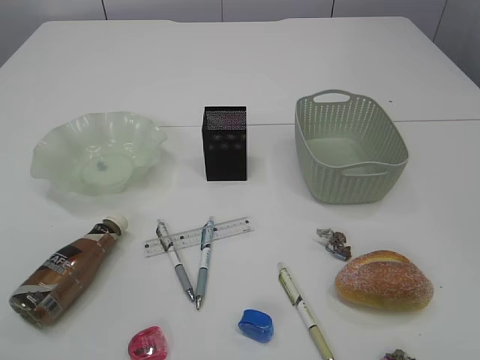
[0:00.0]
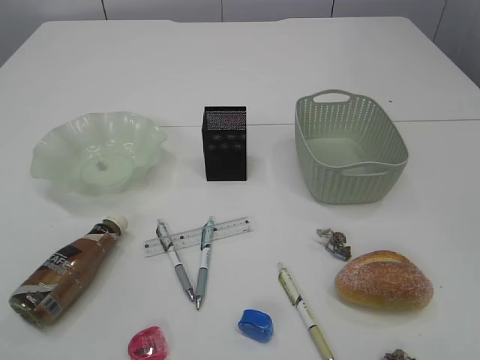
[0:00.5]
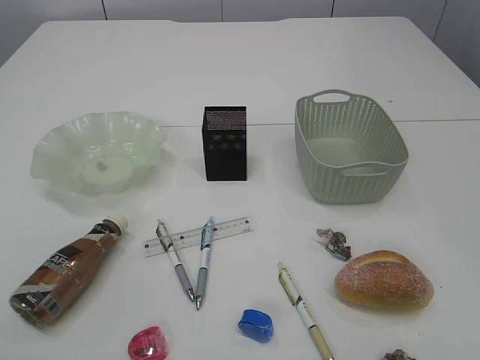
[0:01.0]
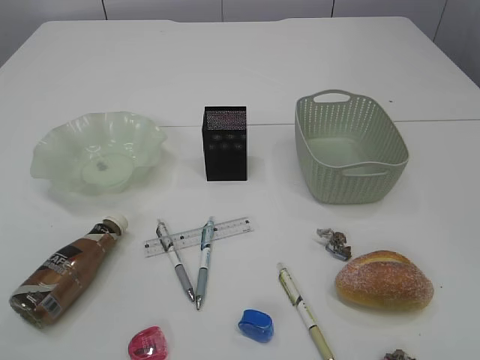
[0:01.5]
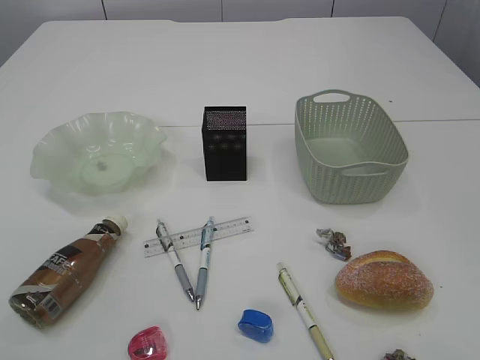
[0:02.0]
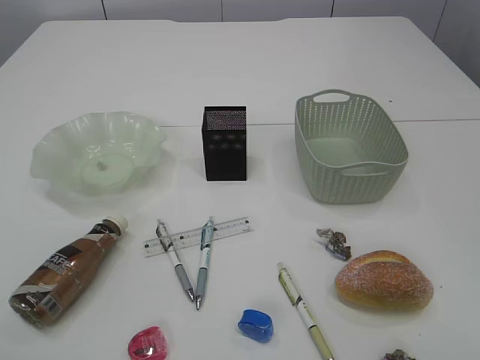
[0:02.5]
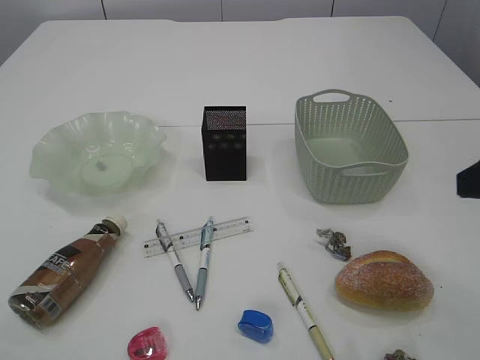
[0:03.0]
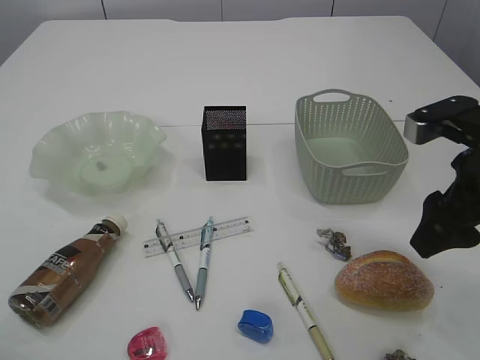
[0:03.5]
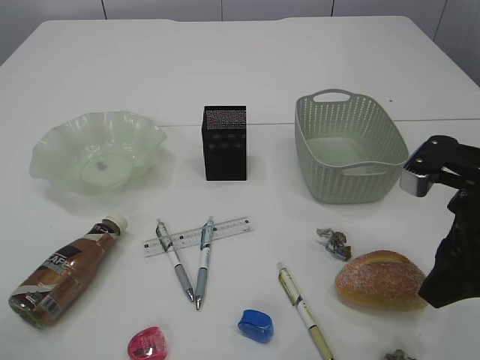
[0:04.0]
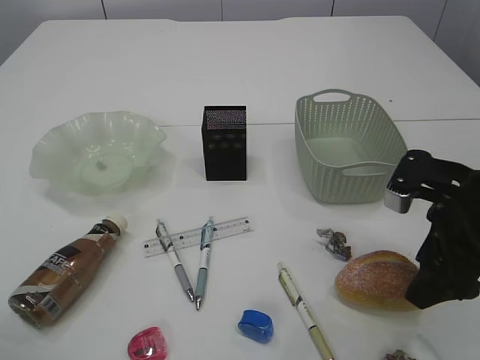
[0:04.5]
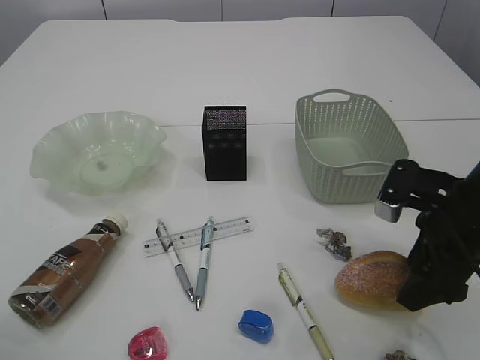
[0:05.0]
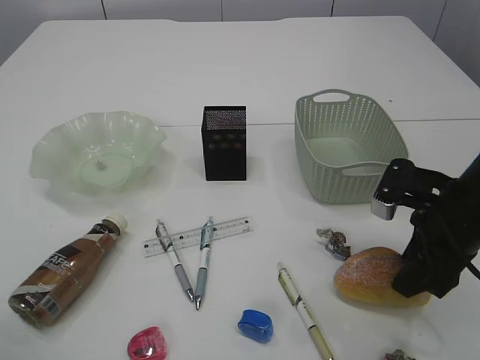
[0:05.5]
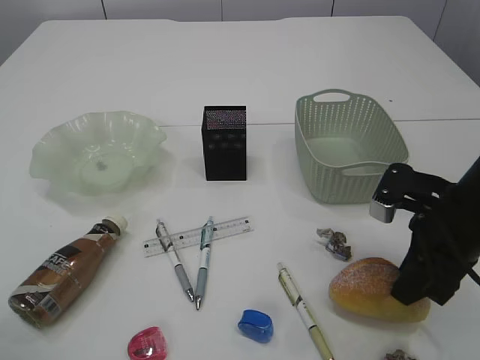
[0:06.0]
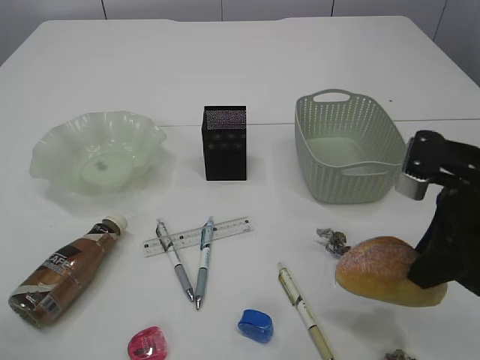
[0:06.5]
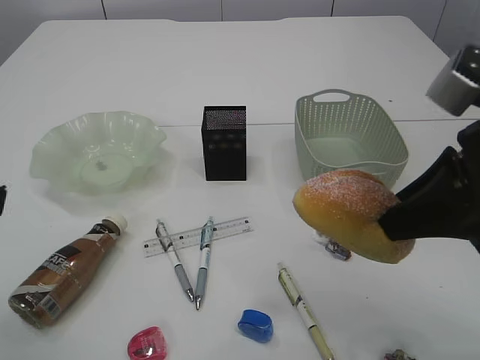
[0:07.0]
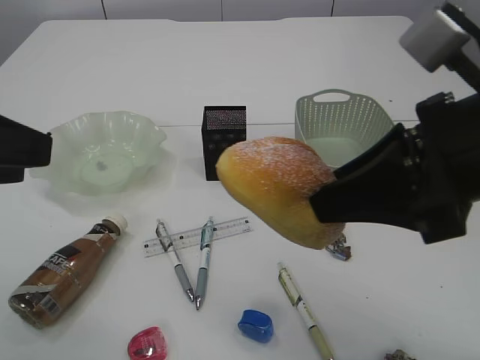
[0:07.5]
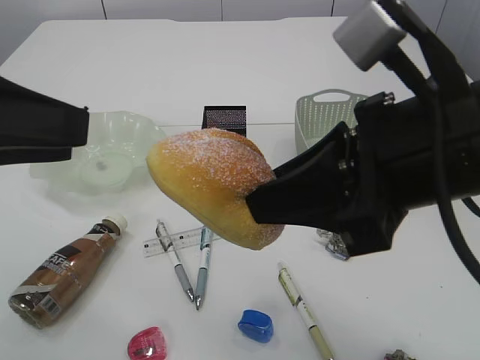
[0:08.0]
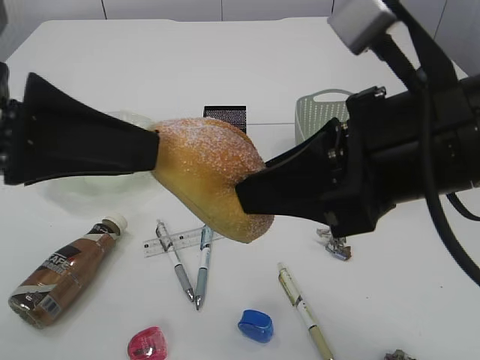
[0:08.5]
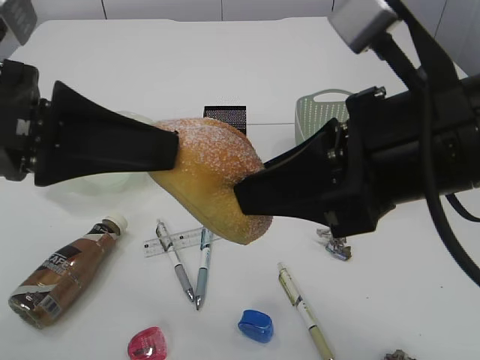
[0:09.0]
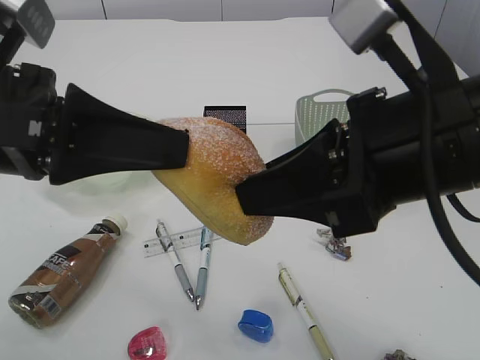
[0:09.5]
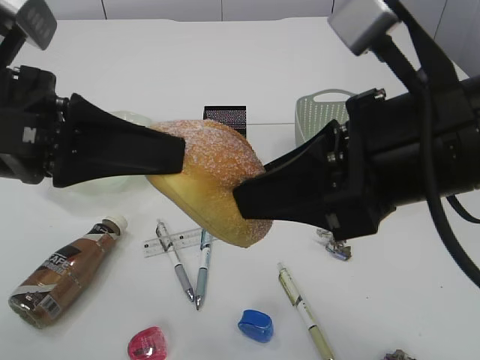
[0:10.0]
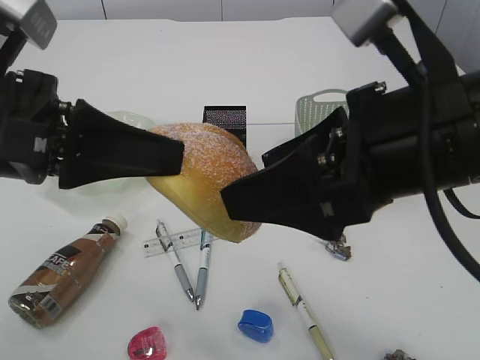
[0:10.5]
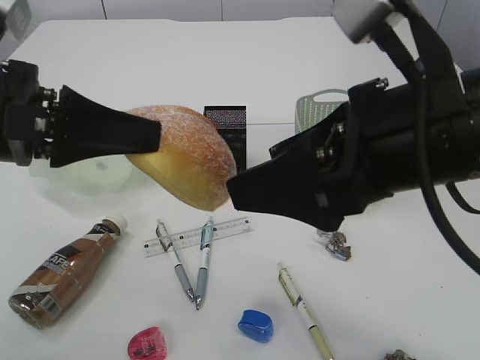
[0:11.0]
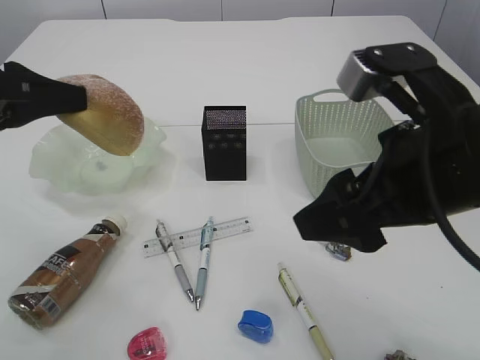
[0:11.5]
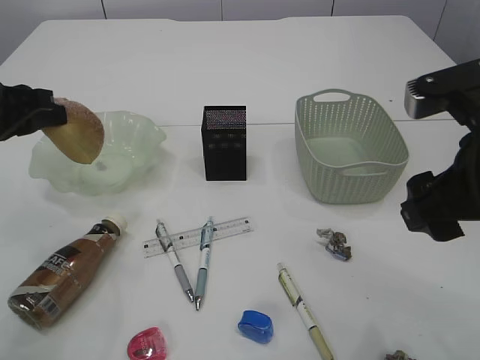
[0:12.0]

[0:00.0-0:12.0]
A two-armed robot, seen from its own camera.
Step, 0:07.5 to 0:11.0: Hand over the bread.
0:02.0 to 0:04.0: The right gripper goes approximately 25 cm forward.
0:04.0 to 0:06.0: The right gripper heads downward, covering some 5 cm, and closes its fingers.
0:06.0 to 0:08.0: The right gripper travels upward, to the left and backward by approximately 20 cm. The left gripper moves to the right, approximately 5 cm.
0:08.0 to 0:10.0: The left gripper is displaced to the right by roughly 5 cm, and closes.
0:10.0 to 0:12.0: The left gripper goes about 15 cm forward, to the left and downward; the right gripper shifts some 10 cm to the right, and opens its fingers.

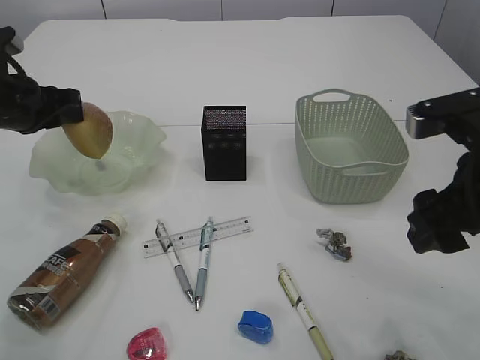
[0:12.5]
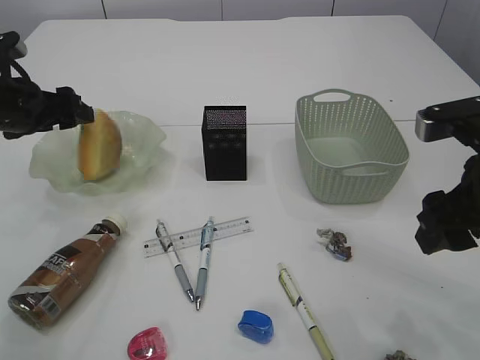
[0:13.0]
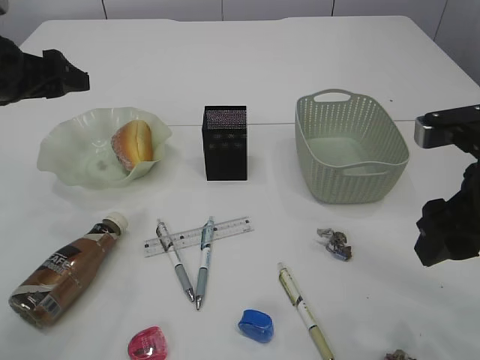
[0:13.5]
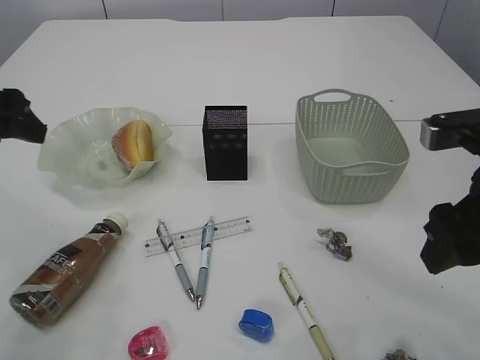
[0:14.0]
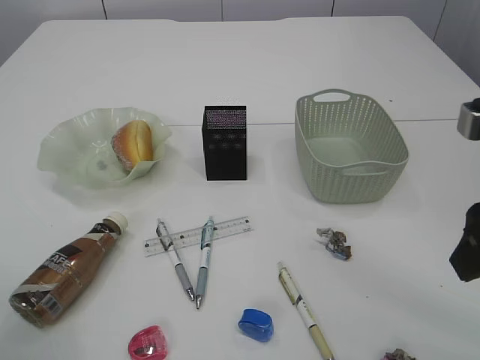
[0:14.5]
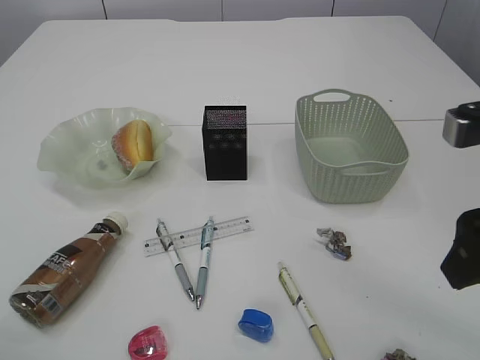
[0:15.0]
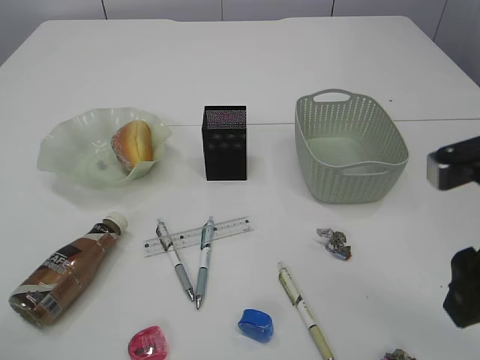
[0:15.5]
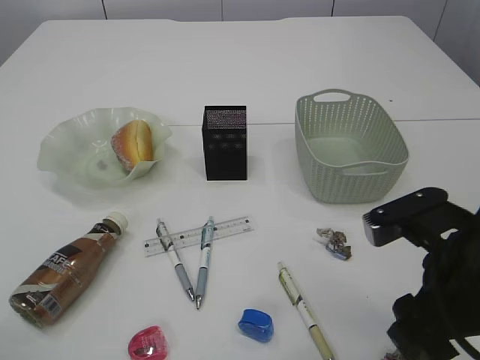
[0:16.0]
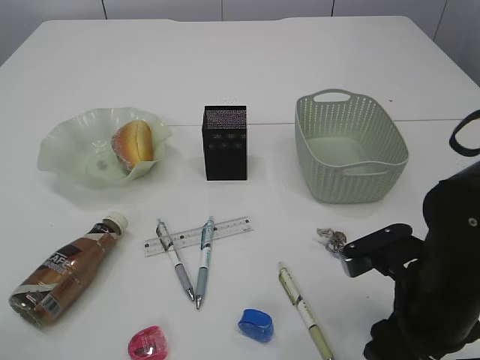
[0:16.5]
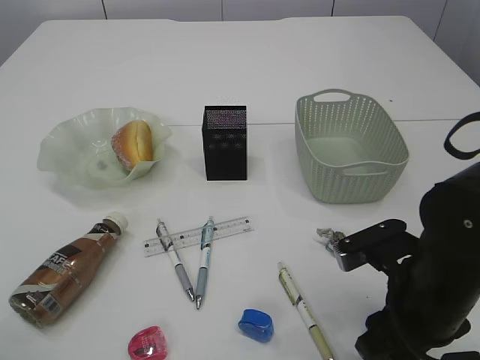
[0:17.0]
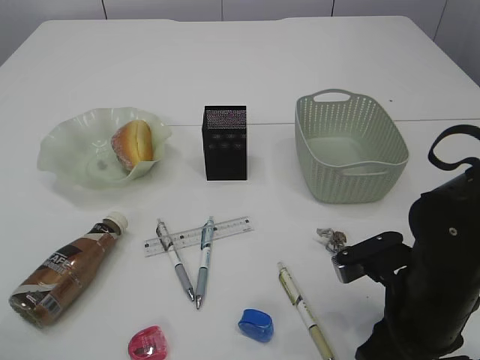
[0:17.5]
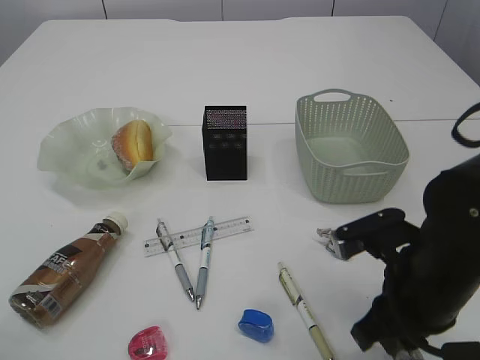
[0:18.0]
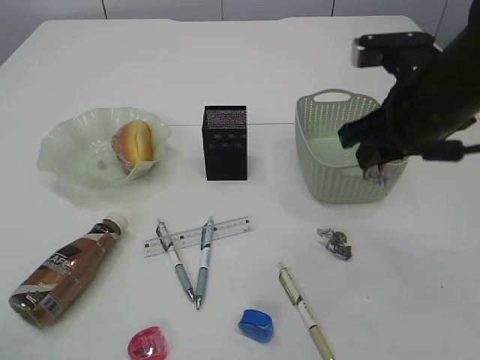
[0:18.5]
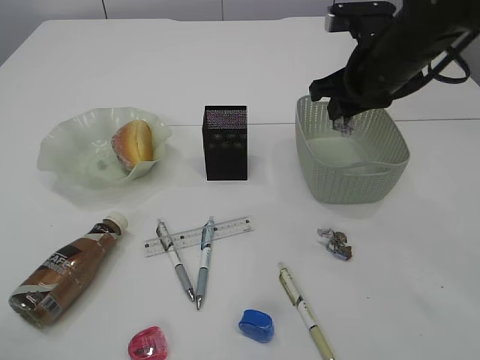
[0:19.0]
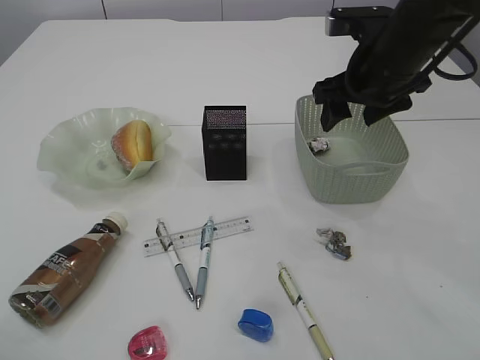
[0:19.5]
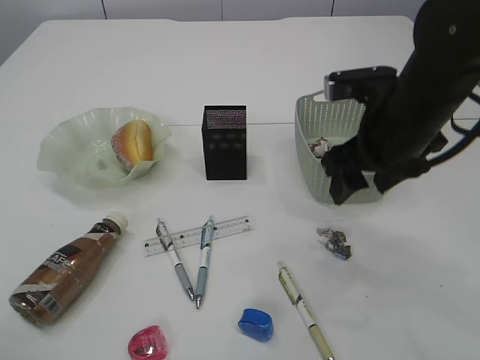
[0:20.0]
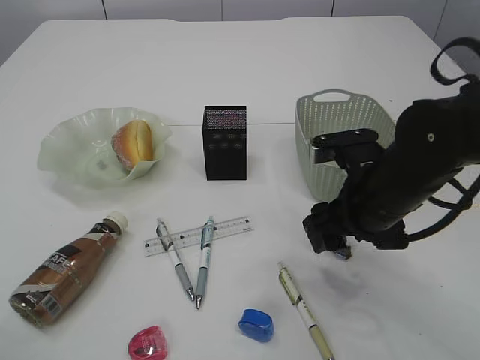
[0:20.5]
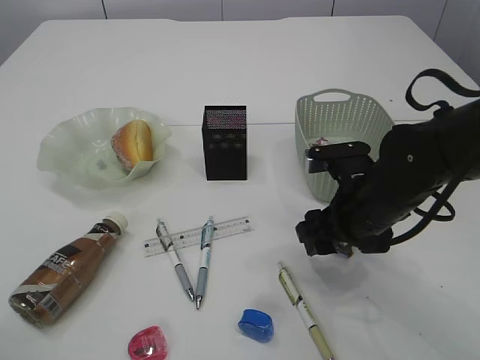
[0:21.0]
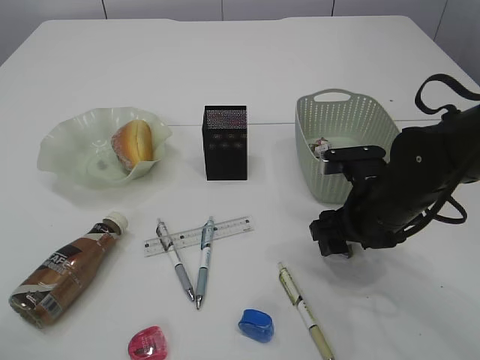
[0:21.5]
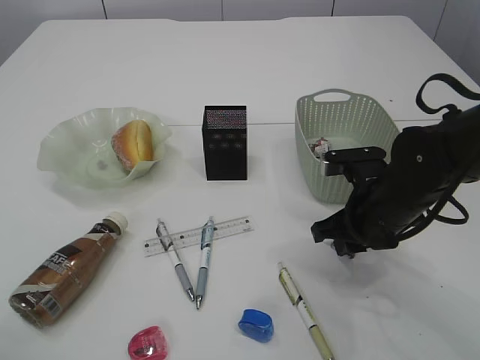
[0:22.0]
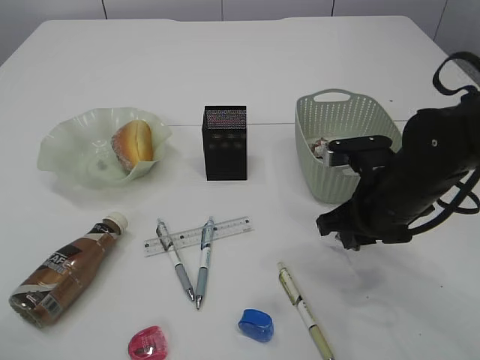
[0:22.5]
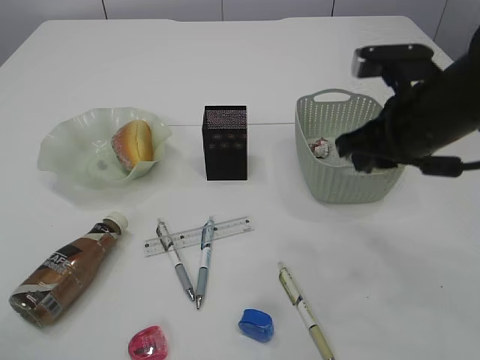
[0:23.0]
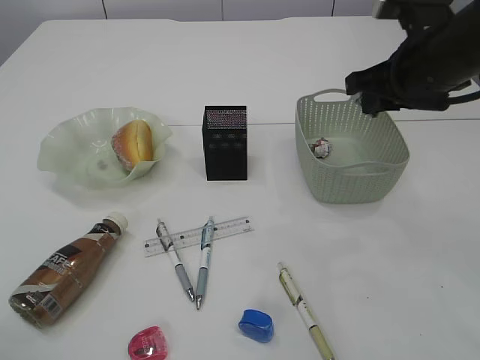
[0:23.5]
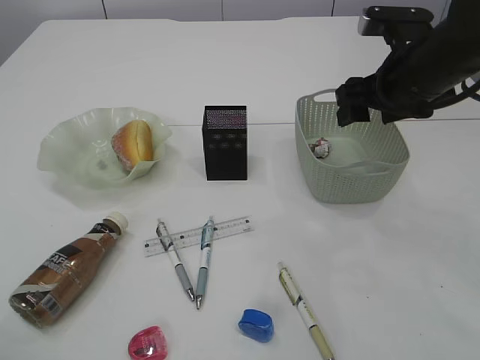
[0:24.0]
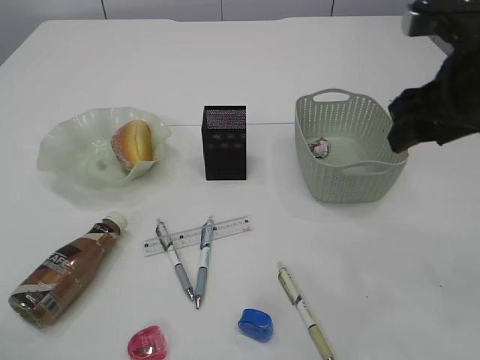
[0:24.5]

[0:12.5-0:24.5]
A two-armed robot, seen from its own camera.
Step, 0:12.5 to 0:14.0: place the bread in the plate.
Step, 0:14.5 to 0:18.0: Pick up the waste paper.
Step, 0:18.5 to 0:19.0: Place the waste paper in the basket.
Step, 0:19.5 to 0:22.5: Pick up the waste paper.
Step, 0:23.0 to 0:23.5: Place the waste paper in the basket.
0:12.5 to 0:14.5: The left gripper shifts some 20 cm backward and upward, and opens.
0:14.5 to 0:16.5: The right gripper goes about 15 cm downward and to the left.
0:16.5 to 0:18.5: The right gripper goes some 15 cm upward and forward, and closes up.
0:18.5 to 0:20.5: The right gripper travels downward by approximately 10 cm, travels forward and back again, about 10 cm each way, and opens its fingers.
0:20.5 to 0:22.5: The right gripper closes.
0:22.5 to 0:24.5: The right gripper goes approximately 15 cm upward, and opens up.

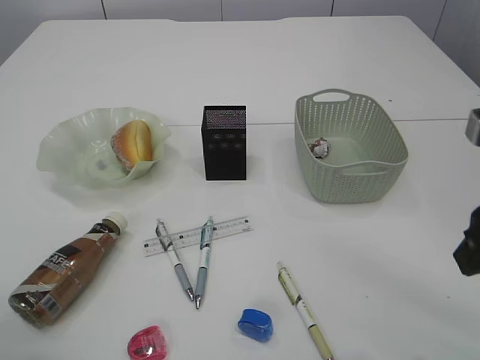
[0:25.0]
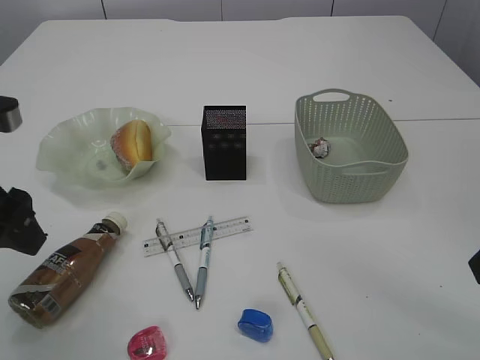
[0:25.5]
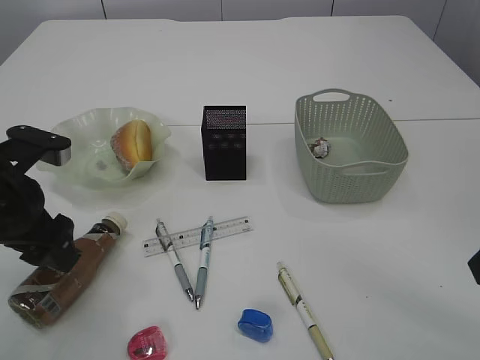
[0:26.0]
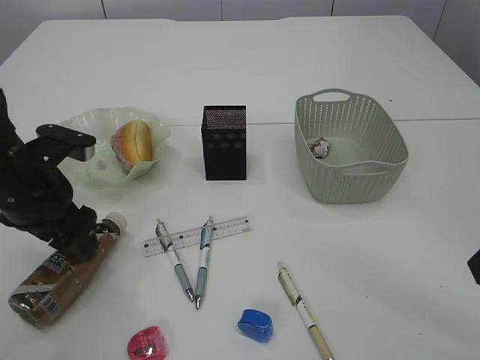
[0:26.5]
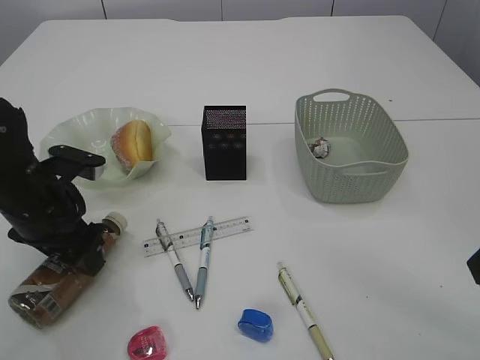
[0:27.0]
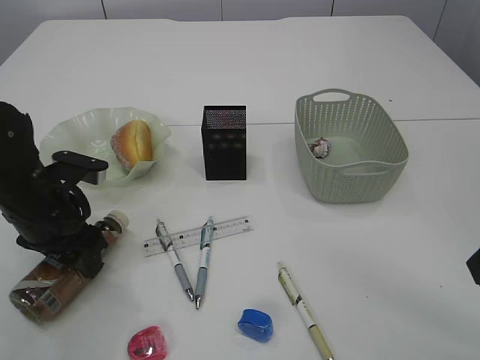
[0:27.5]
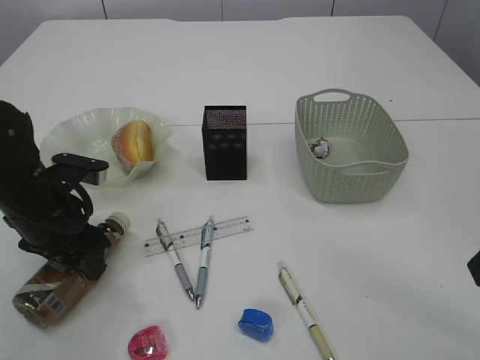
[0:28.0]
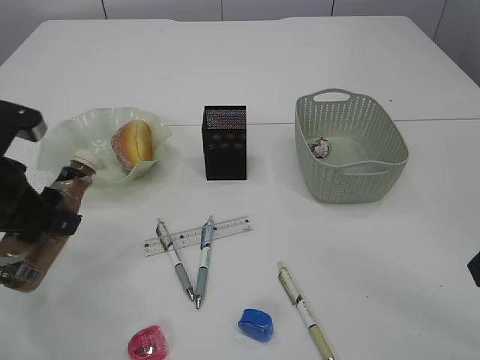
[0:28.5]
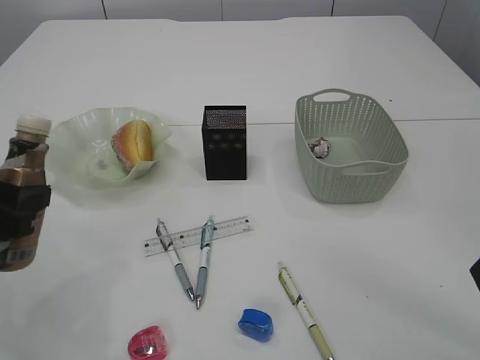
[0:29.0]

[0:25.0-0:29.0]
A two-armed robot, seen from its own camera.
Step, 0:25.0 to 0:28.5: Pick up the bottle with the left arm.
0:25.0 to 0:27.0: The left gripper shifts some 20 cm downward and forward, and opens up.
0:27.0 to 0:29.0: The left gripper goes about 10 cm backward and upward, and closes up.
